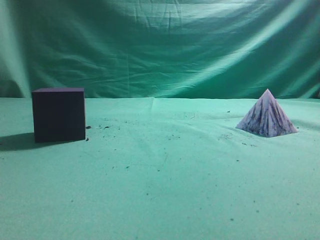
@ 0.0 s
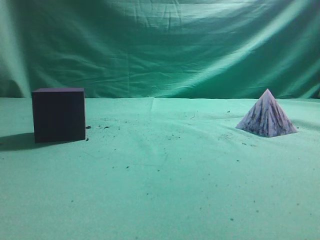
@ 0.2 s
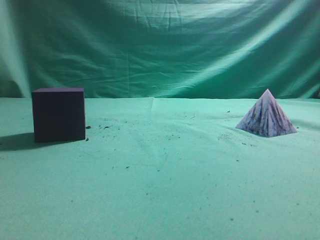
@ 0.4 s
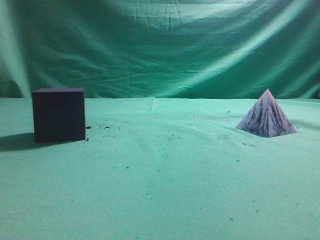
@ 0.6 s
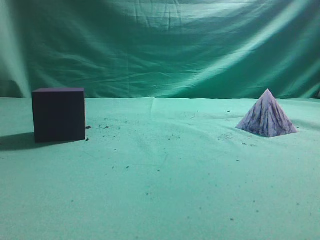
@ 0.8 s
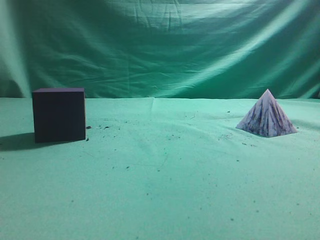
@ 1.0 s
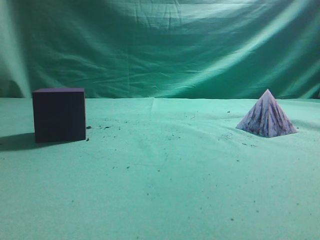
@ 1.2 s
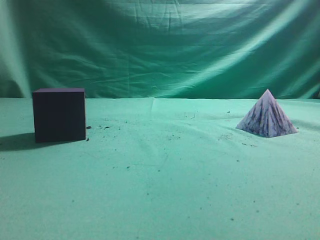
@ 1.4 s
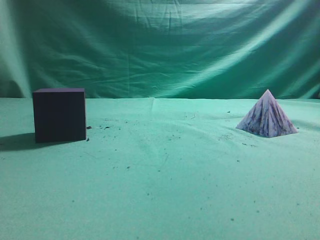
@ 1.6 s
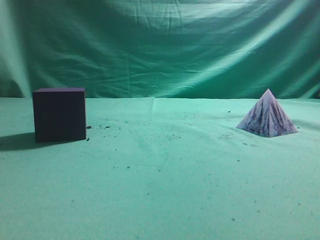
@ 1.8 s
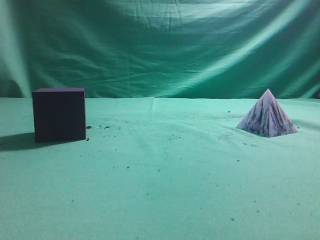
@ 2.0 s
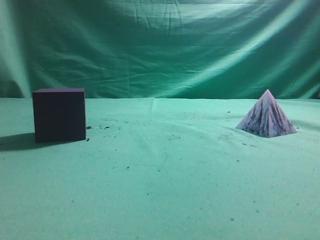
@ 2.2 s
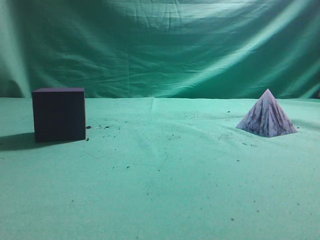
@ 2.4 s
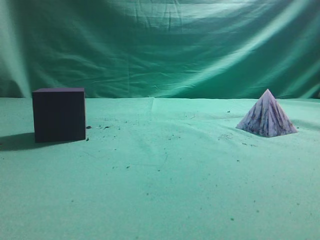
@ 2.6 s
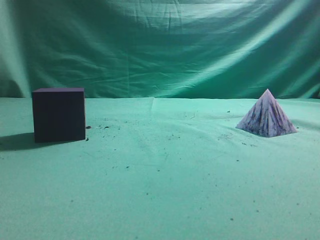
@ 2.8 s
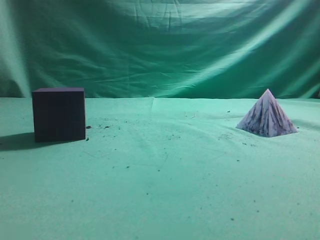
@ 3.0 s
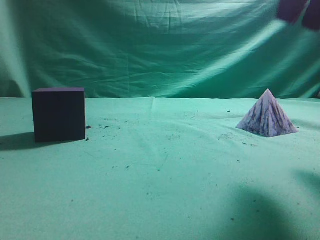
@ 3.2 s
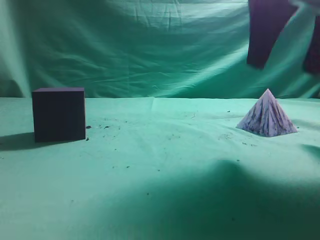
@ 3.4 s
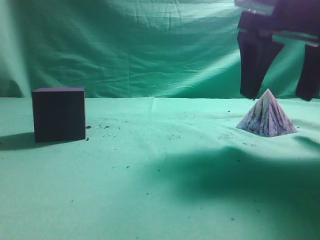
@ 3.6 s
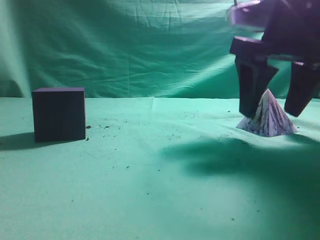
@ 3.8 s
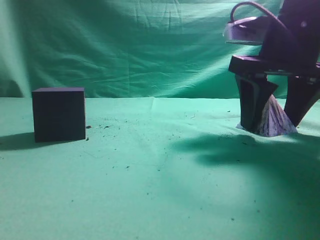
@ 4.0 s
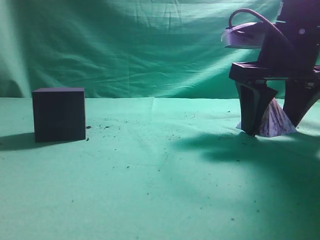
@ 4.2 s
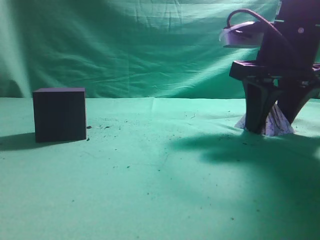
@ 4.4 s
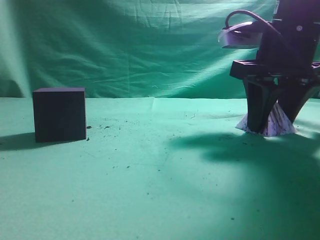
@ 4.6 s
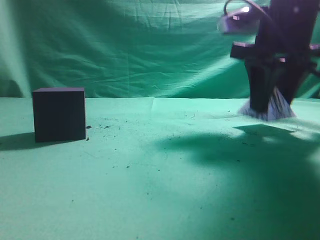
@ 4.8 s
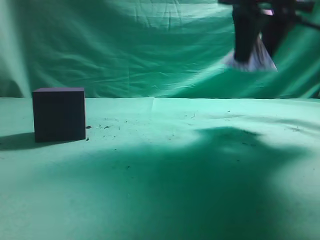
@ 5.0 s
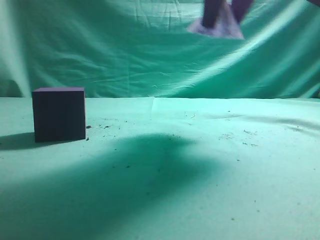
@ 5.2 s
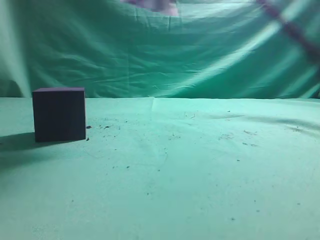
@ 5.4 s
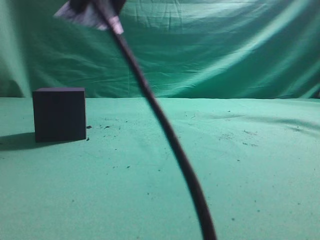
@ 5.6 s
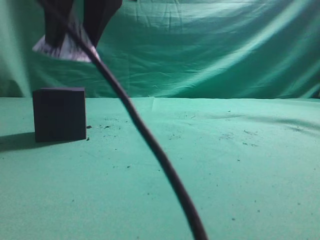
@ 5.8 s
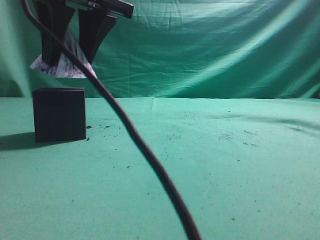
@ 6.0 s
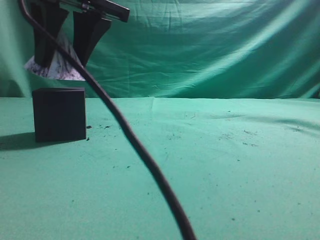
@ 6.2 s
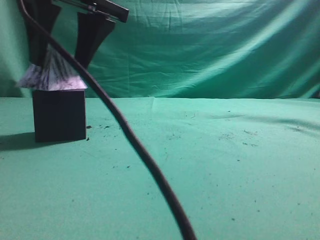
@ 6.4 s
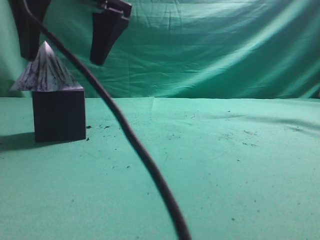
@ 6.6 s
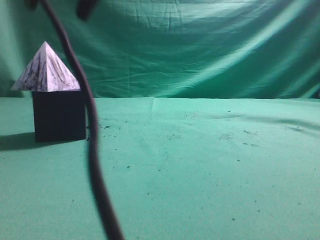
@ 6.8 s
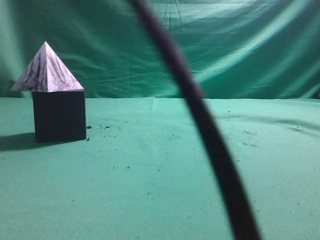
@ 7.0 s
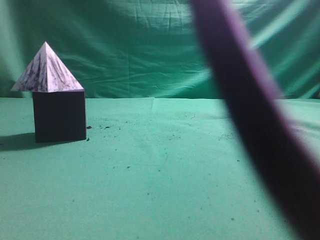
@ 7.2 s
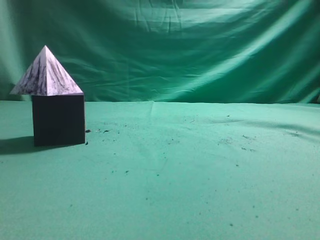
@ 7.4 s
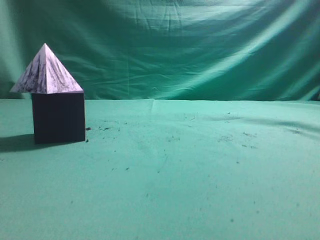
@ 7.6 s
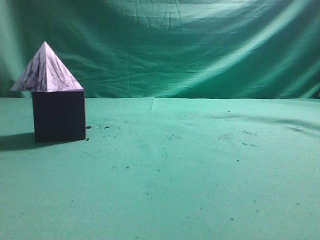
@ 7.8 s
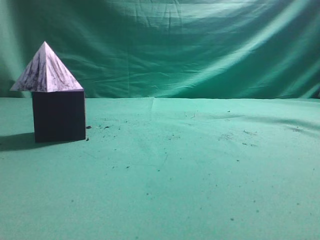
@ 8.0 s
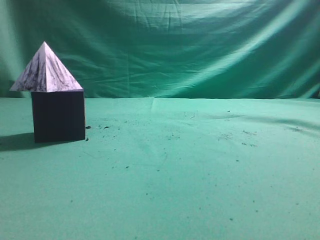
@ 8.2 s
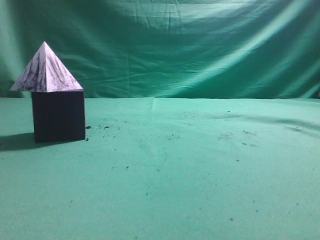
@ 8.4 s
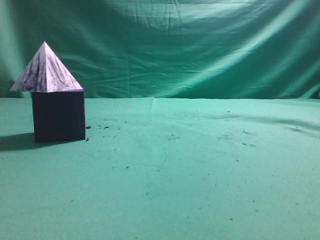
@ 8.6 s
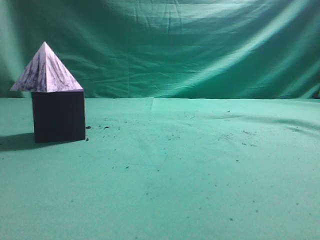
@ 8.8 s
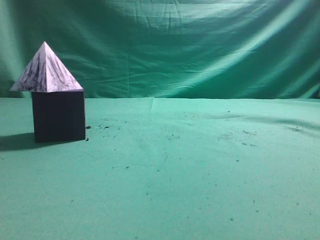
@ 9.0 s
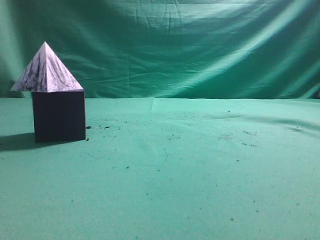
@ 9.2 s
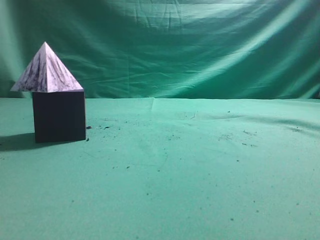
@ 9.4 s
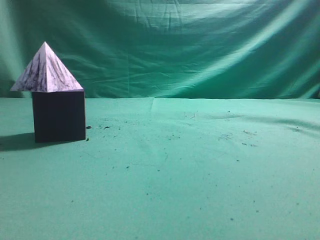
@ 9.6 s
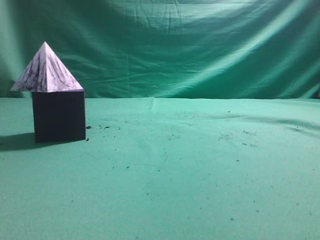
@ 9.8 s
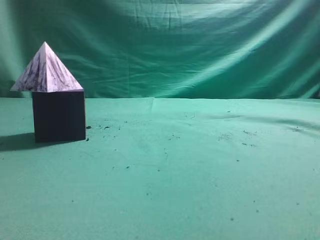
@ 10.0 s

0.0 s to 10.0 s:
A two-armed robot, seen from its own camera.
Task of the whole recording: pick up the square pyramid from the table and place it on the cube block.
Step, 0.0 to 4.8 s: Grasp the triangular block.
Step, 5.0 to 6.6 s: Place the block onto the cube-shaped block.
2.8 to 4.2 s: The right gripper shifts approximately 25 cm downward, forward and to the left, and opens up.
4.2 to 5.8 s: The right gripper shifts some 25 cm to the left and upward, and closes its fingers.
5.8 to 7.2 s: The right gripper moves upward, some 20 cm, and closes.
7.2 to 8.6 s: The right gripper is displaced to the right and backward by roughly 35 cm.
